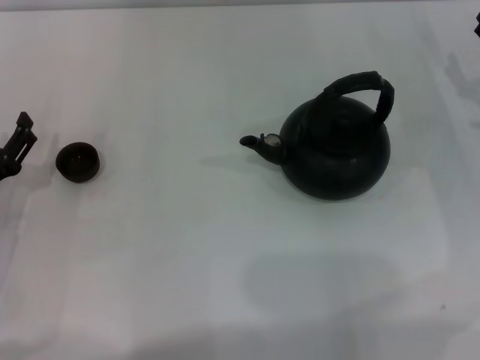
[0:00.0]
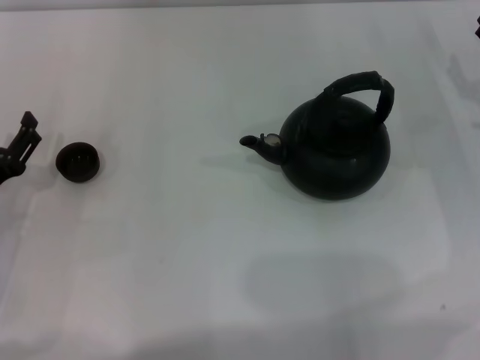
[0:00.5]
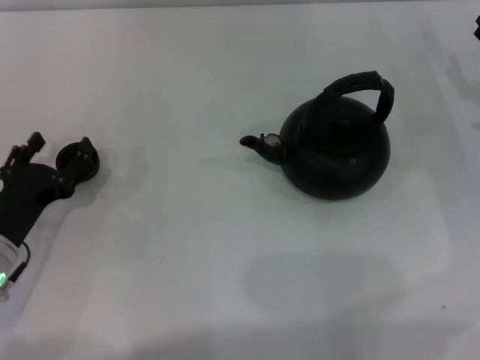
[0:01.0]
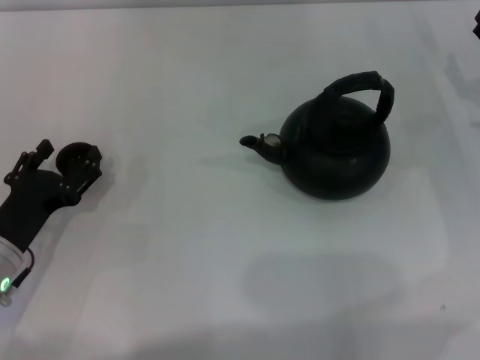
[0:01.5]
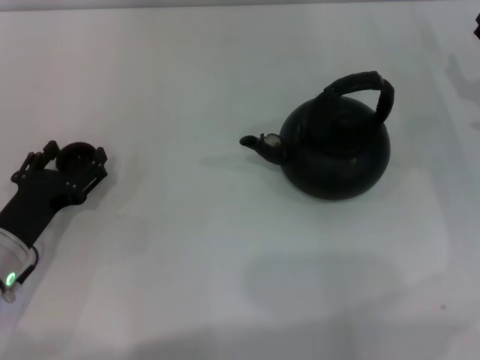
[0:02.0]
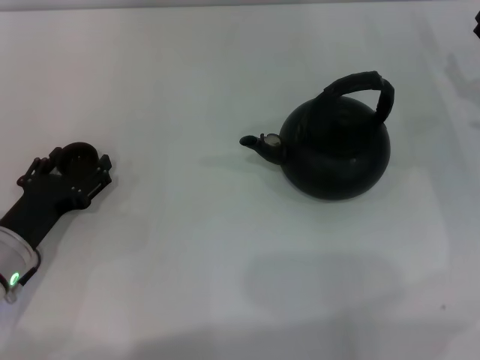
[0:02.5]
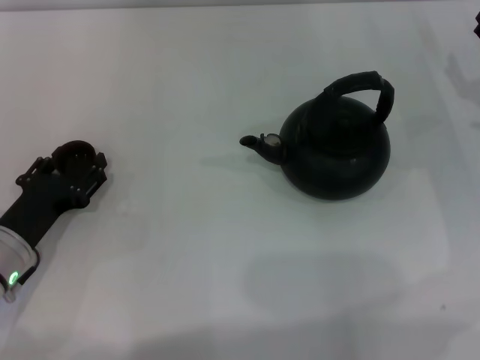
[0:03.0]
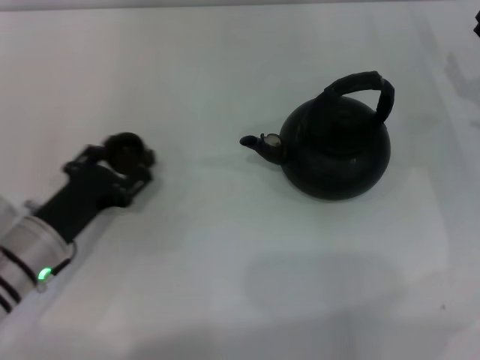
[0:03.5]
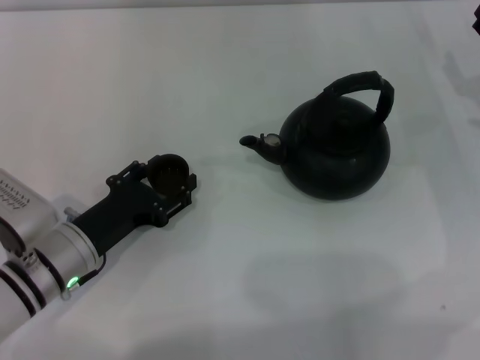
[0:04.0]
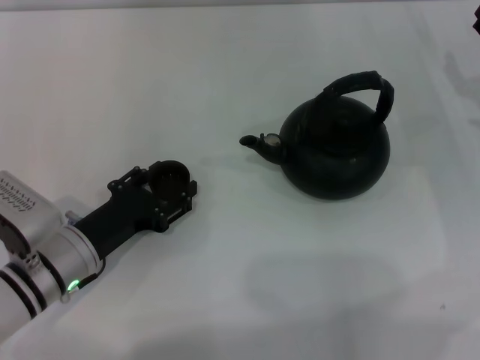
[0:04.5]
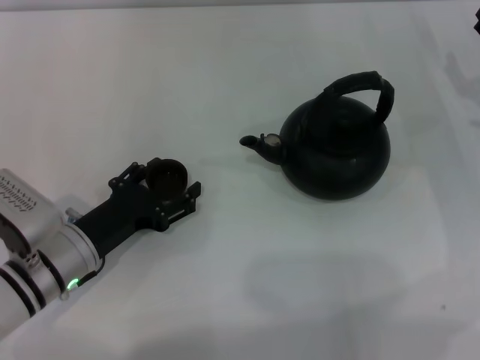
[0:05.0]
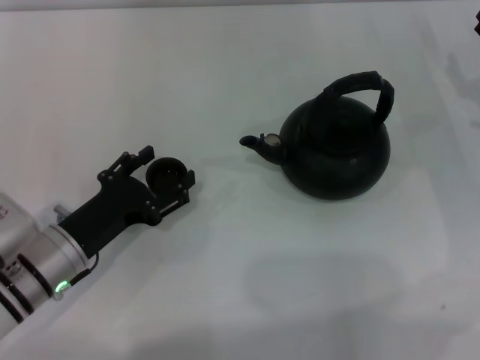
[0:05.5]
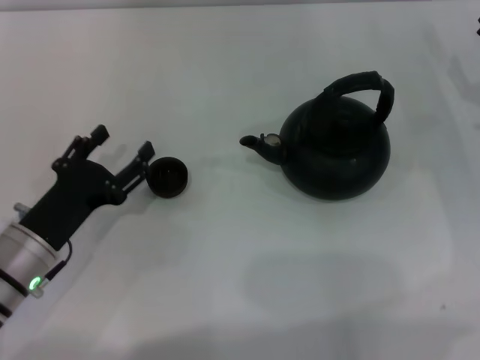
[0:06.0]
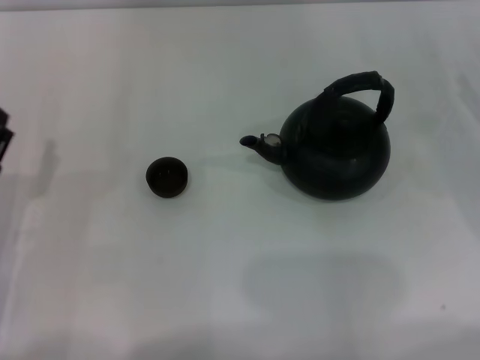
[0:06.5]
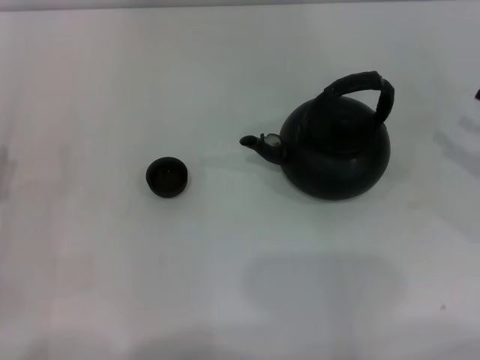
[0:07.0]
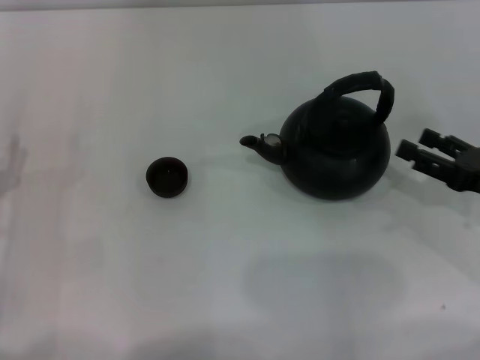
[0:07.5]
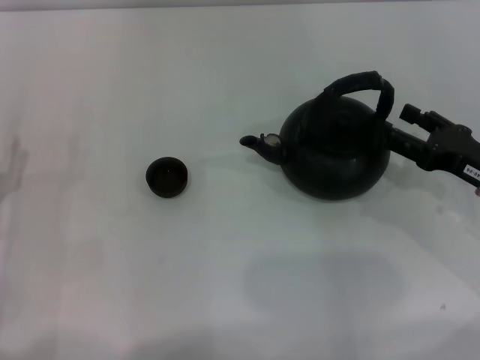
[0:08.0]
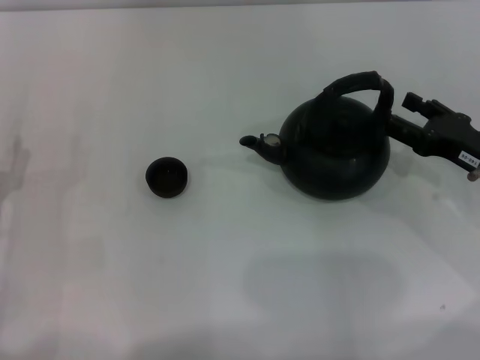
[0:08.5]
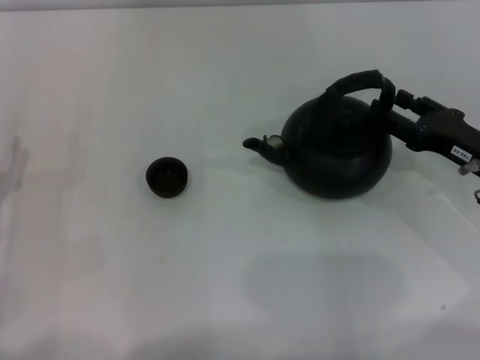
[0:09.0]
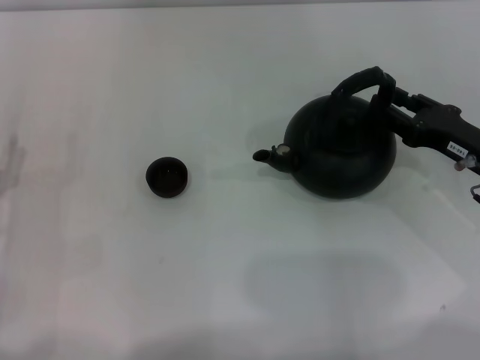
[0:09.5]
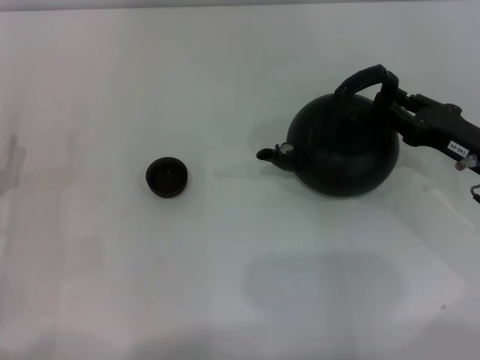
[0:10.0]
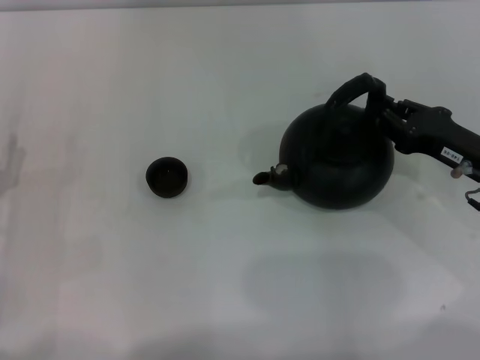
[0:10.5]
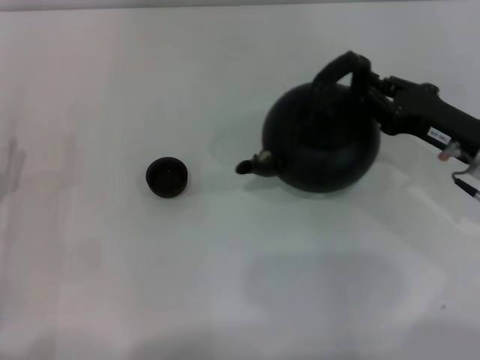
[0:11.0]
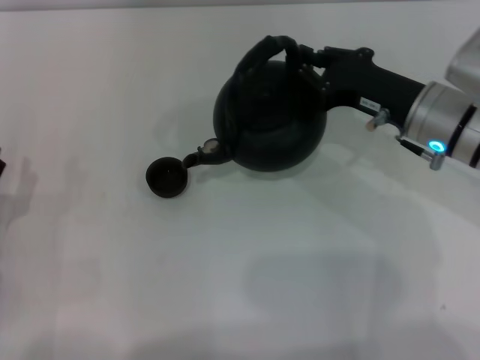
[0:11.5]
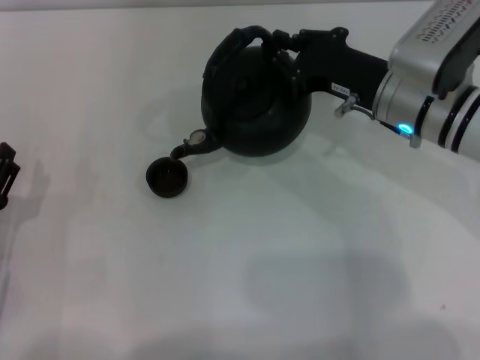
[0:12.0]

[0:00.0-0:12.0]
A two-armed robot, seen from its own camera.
Task of the whole recording: Grasp the handle of the teapot with one hand and pour tea into the teacup.
Step, 0:00.0 to 0:03.0: Pick up the teacup with the left gripper.
Step, 0:03.5 to 0:05.5: Place the teacup in the center of view with the left gripper.
Step, 0:06.5 to 0:11.0: Pick up the teapot with the right gripper.
0:00.0 to 0:02.0: There are only small adjustments of the grippers.
0:02.0 to 0:04.0: The left gripper goes roughly 5 cm to the right, and closes its fingers.
0:04.0 to 0:06.0: The left gripper opens.
0:06.0 to 0:08.0: The right gripper heads backward, covering approximately 5 cm. Meanwhile the left gripper travels to the left by some 5 cm.
0:08.0 to 0:10.0: The right gripper closes its fingers.
0:10.0 to 0:12.0: The right gripper shifts approximately 15 cm to the left, upward and forward.

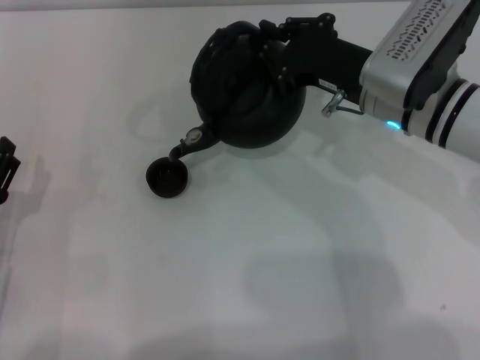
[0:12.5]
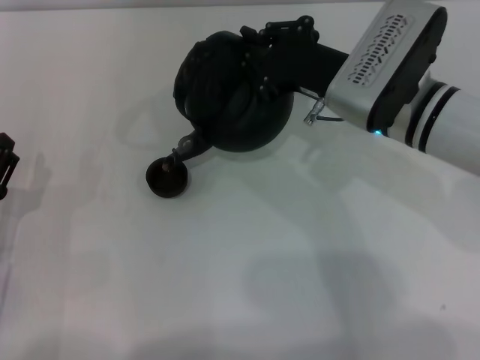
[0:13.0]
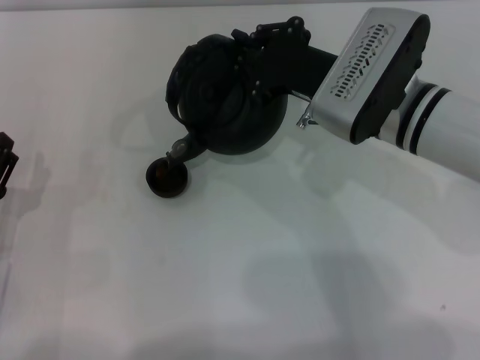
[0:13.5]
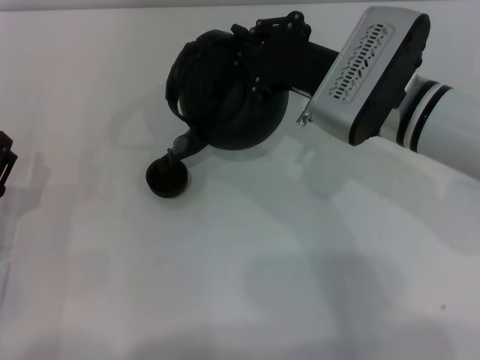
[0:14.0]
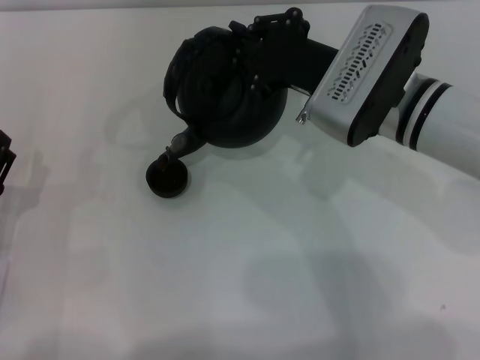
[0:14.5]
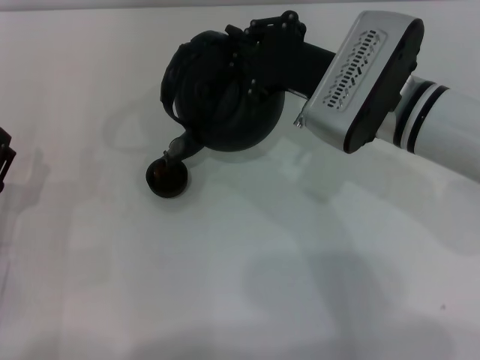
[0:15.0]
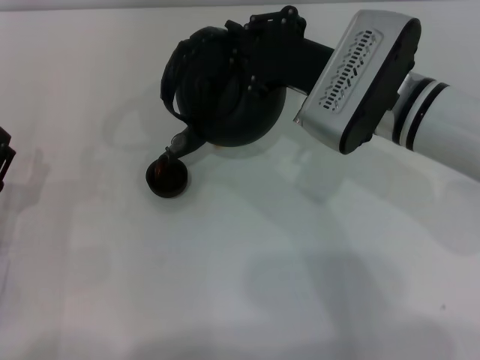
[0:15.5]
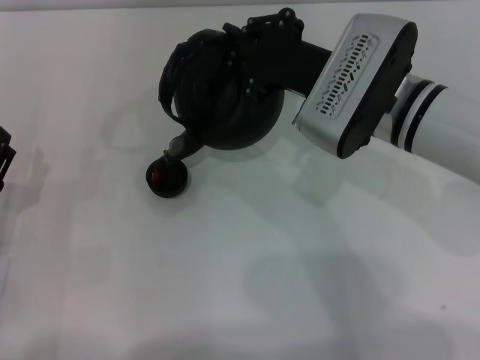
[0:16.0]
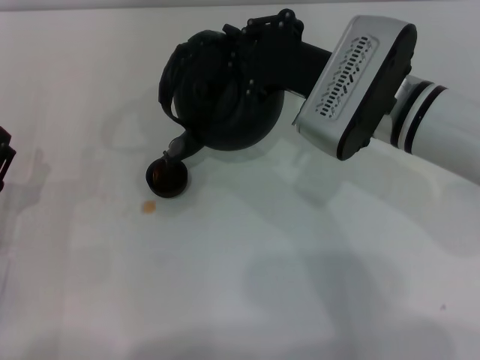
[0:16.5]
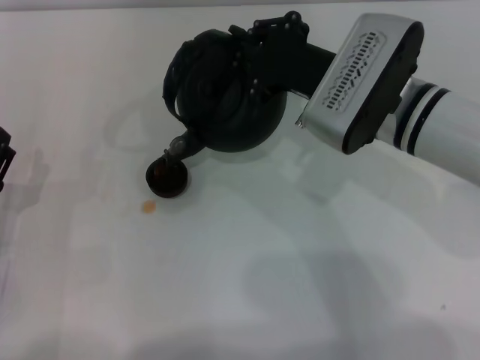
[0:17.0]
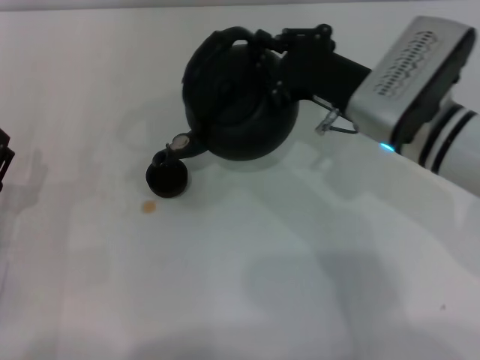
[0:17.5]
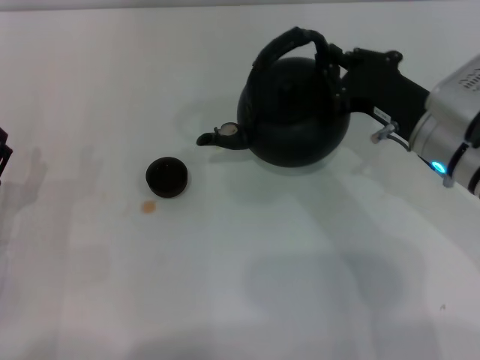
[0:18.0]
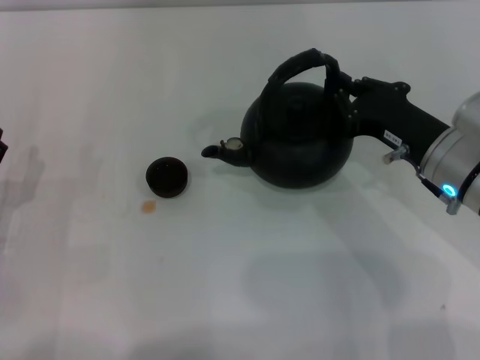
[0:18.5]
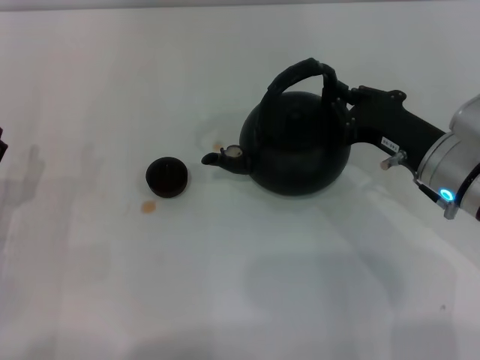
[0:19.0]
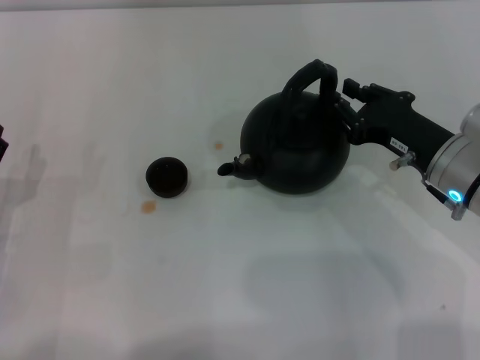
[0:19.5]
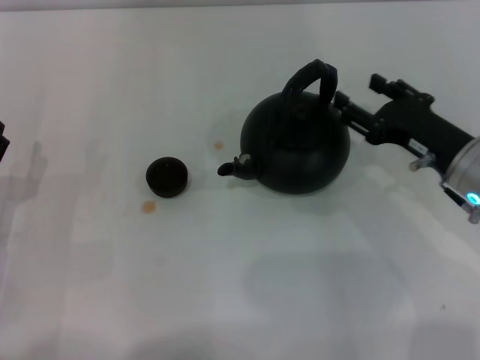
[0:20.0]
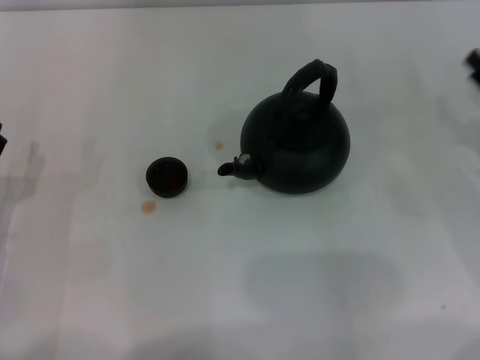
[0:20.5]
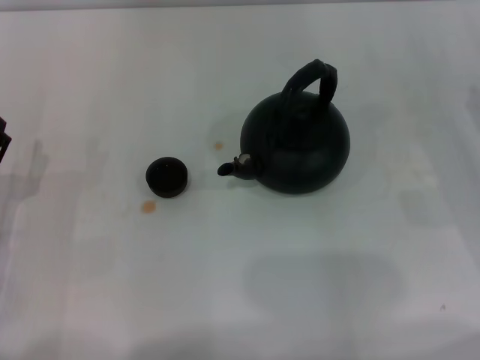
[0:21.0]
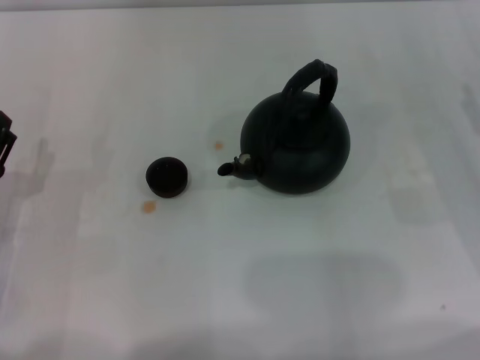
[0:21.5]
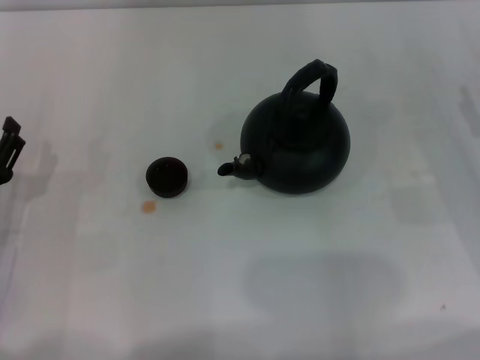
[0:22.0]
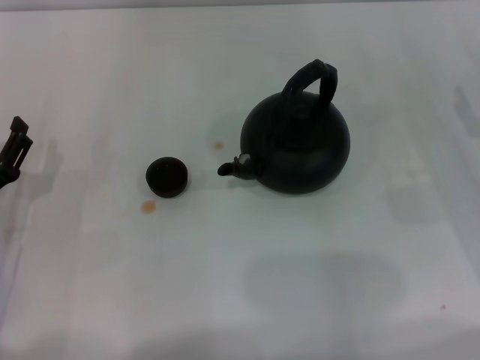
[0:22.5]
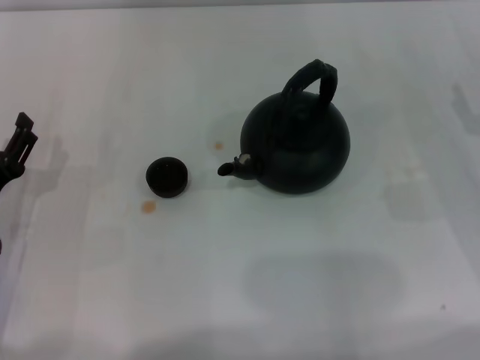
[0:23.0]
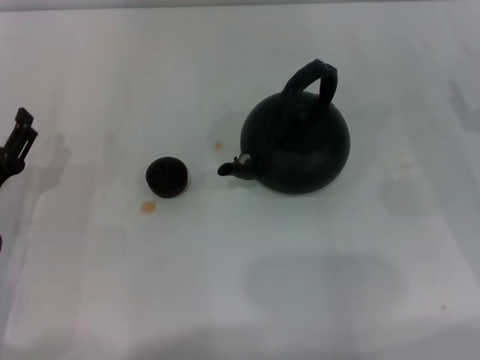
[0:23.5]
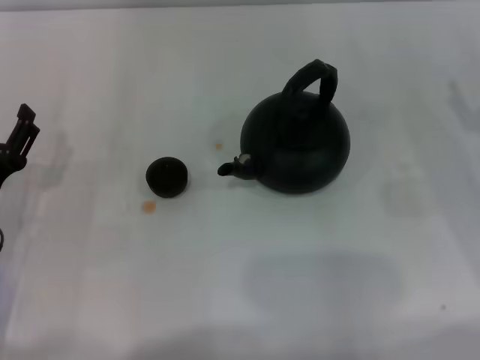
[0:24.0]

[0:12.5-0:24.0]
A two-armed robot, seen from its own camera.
Task of the whole recording: Grasp the handle of the teapot with one hand and pour tea into the teacup.
Step, 0:12.5 to 0:17.5: Pour tea into the teacup with the right gripper.
Step, 0:18.0 to 0:19.5: Put down the teapot with the right gripper.
0:12.5 to 0:14.5: The grippers stay close to where they were, moving slightly.
0:14.5 to 0:16.5: The two grippers keep their place.
0:16.5 to 0:18.5: The right gripper travels to the right and downward by roughly 10 cm.
0:18.5 to 0:20.0: The right gripper opens up.
0:20.0 to 0:22.0: The right gripper travels to the right by roughly 10 cm.
